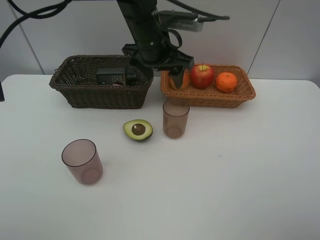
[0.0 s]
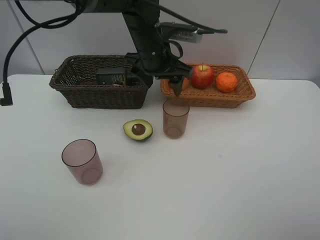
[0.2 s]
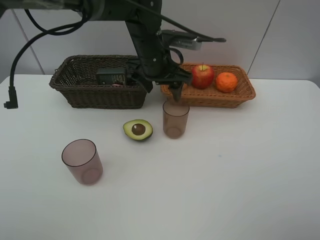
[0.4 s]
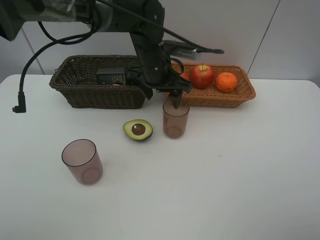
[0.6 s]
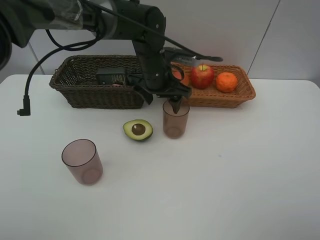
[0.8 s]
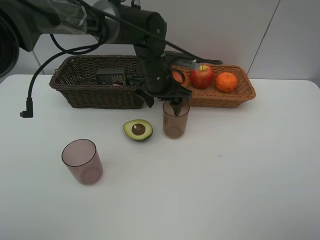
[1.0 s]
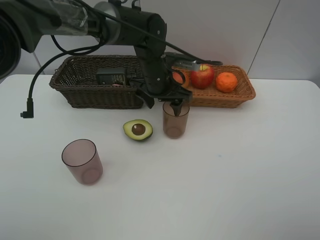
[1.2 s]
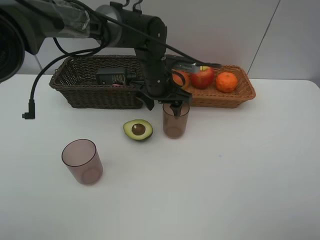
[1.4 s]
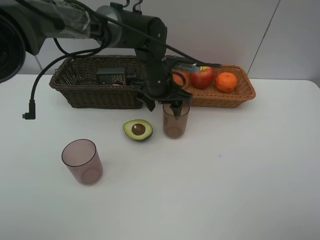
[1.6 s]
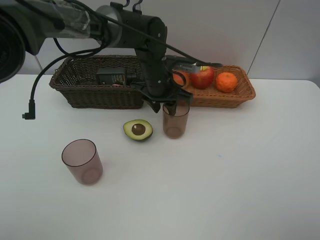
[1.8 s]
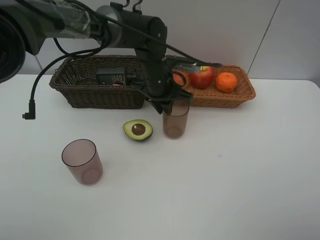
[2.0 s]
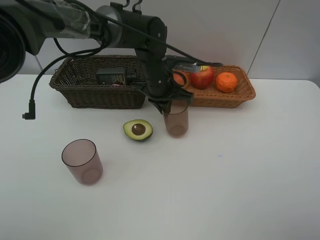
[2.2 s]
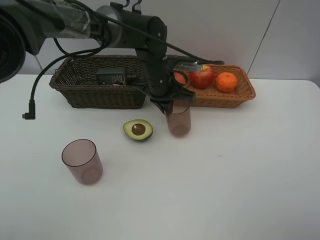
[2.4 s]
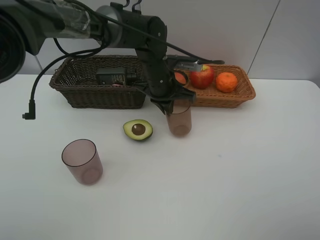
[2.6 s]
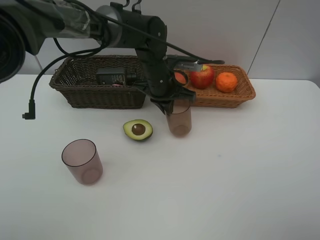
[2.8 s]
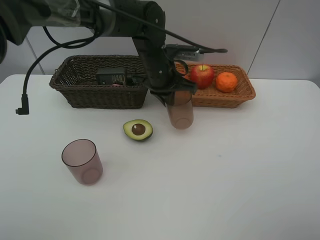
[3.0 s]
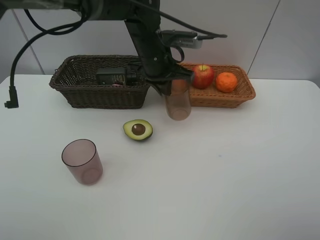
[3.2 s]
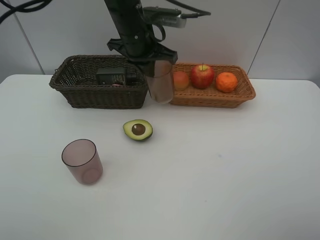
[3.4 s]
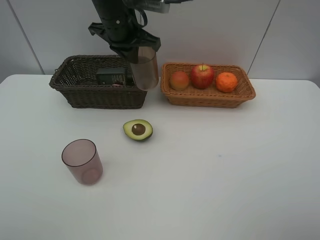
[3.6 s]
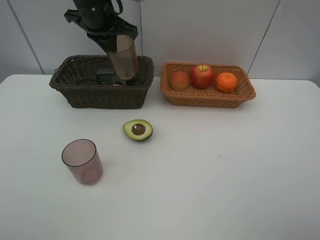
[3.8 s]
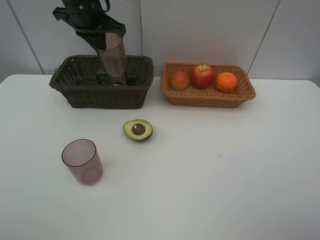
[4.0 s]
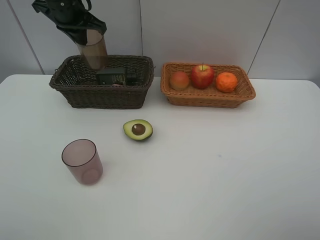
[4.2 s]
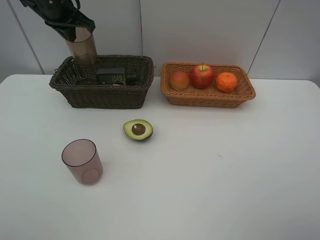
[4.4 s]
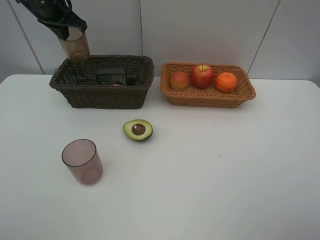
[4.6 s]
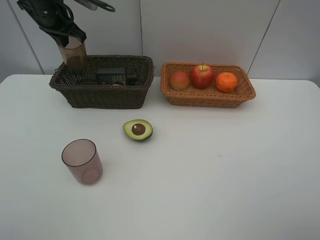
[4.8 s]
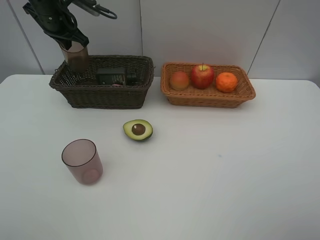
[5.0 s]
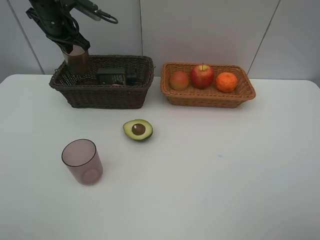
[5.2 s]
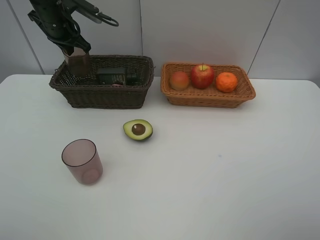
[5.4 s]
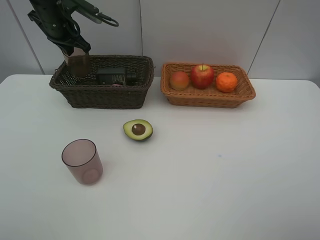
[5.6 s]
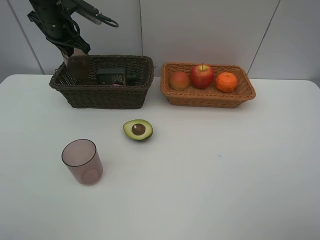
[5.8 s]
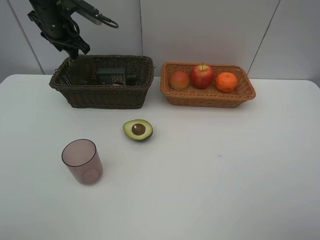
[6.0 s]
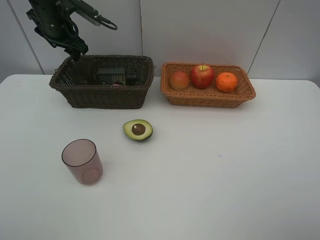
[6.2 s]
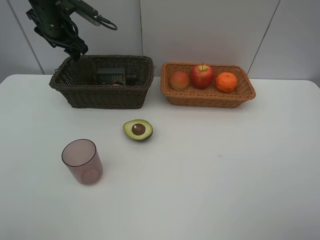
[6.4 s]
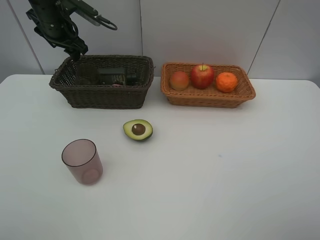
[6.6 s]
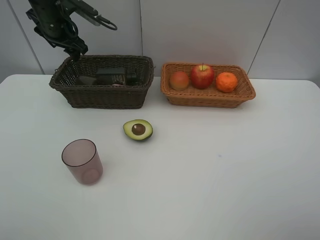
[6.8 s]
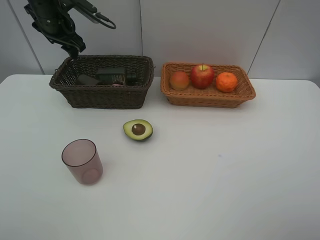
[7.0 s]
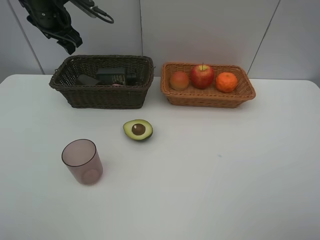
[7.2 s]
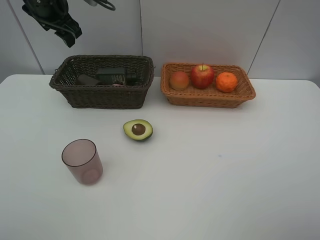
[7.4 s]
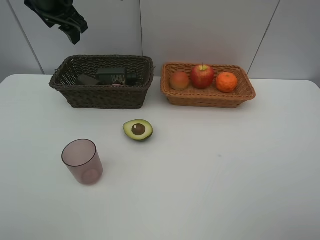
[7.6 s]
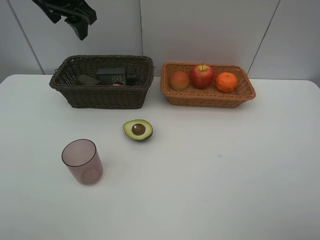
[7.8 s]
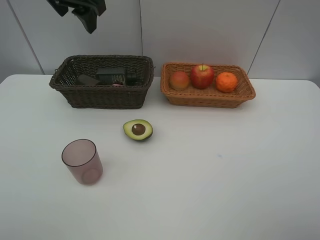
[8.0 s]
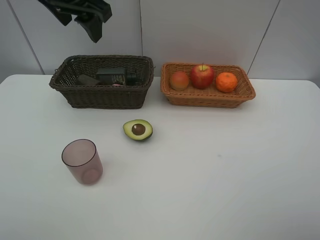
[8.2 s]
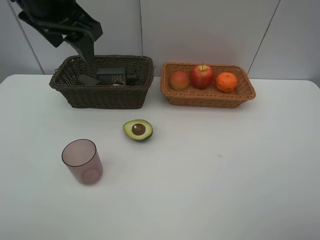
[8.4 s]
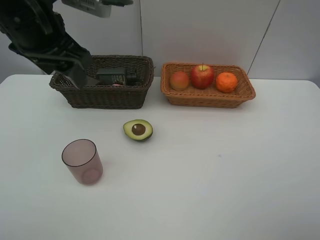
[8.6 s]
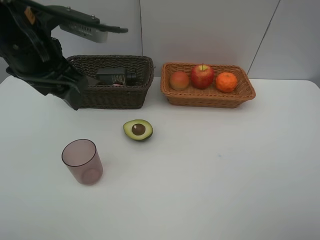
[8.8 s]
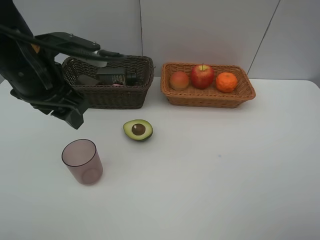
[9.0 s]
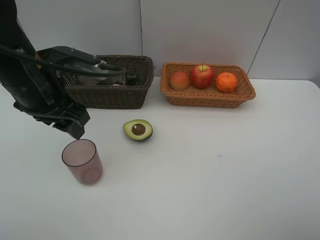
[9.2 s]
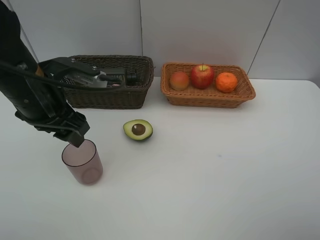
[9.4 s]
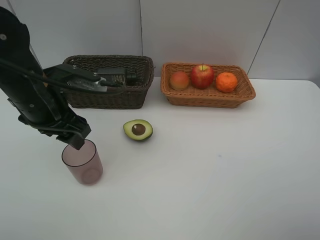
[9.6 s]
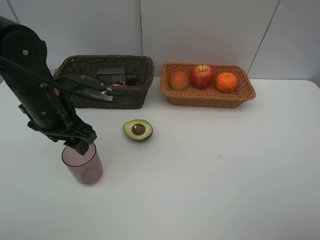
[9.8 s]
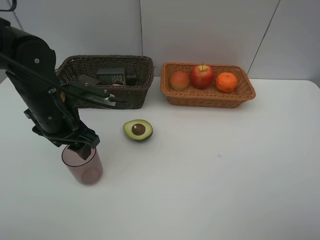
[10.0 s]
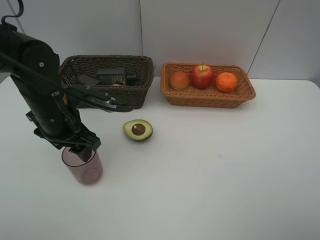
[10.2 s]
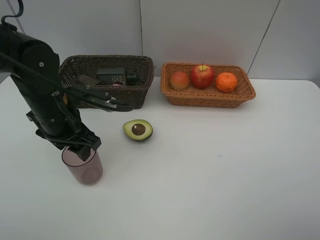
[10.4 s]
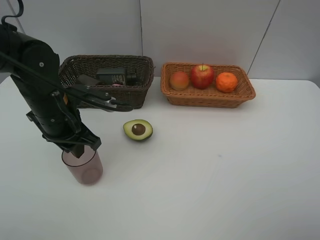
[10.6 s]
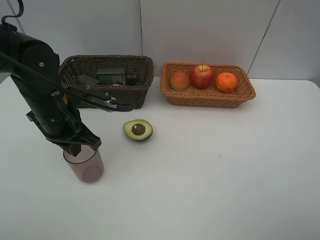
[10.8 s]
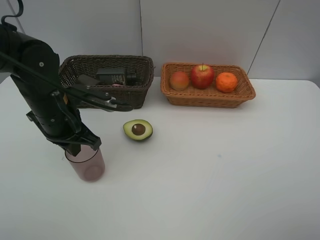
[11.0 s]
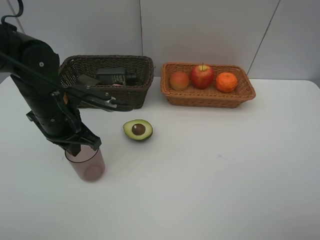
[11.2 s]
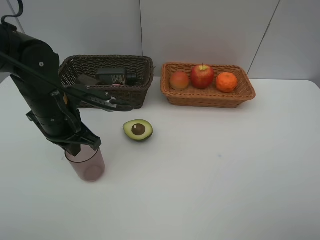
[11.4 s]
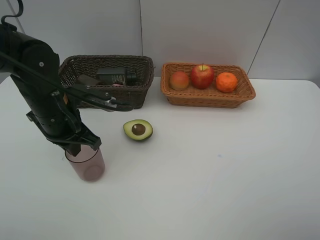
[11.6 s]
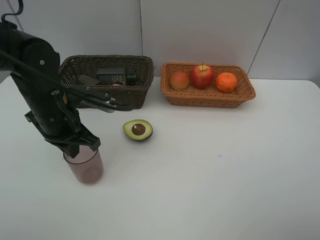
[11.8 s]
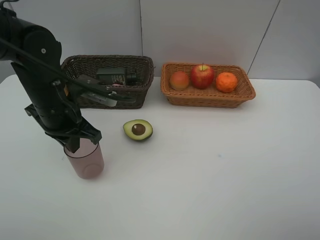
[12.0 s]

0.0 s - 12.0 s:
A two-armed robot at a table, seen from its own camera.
Task of the whole recording: Place multiple objects separately in different baskets.
Step, 0.0 s - 3.0 s: Pick up the light brown cup with left gripper.
Step, 3.2 s - 6.6 s: Place the light brown cup in the dark basket with left gripper.
Step, 6.8 s - 12.0 s: Pick up the red cup with left gripper.
0.0 s - 1.6 s: The left gripper shifts some 10 cm downward.
1.6 s - 3.0 s: The left gripper closes its fingers.
3.0 s - 4.4 s: The left gripper is displaced to the left and upward by roughly 25 cm.
4.4 s - 6.0 s: The left gripper travels downward by about 5 cm, and opens its fingers.
6.0 s - 7.6 s: The left gripper moves upward and backward, approximately 10 cm.
7.6 s - 9.0 s: The left gripper is displaced backward by roughly 20 cm.
9.0 s - 10.4 s: The left gripper moves downward, roughly 10 cm.
10.4 s - 12.0 s: The left gripper closes.

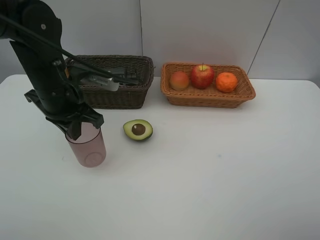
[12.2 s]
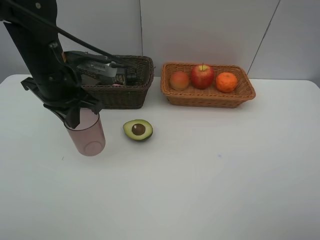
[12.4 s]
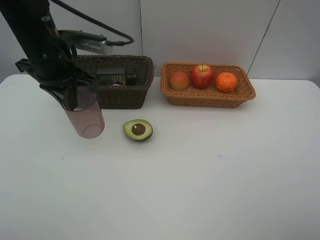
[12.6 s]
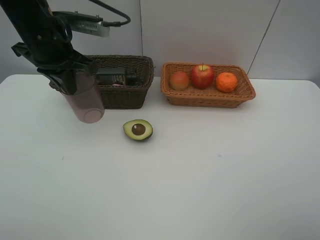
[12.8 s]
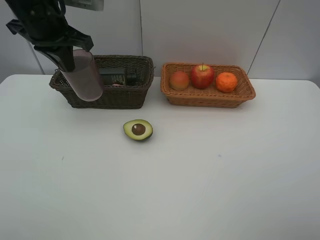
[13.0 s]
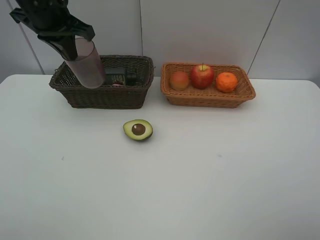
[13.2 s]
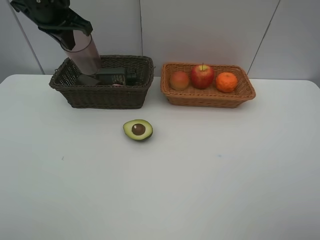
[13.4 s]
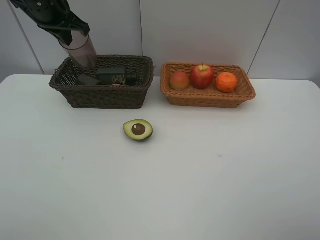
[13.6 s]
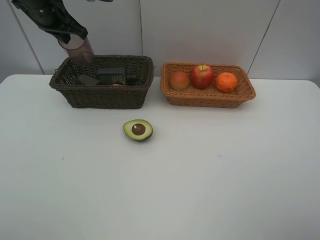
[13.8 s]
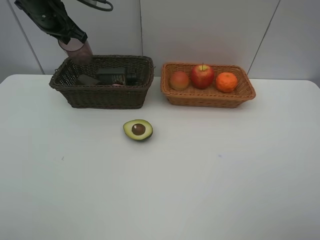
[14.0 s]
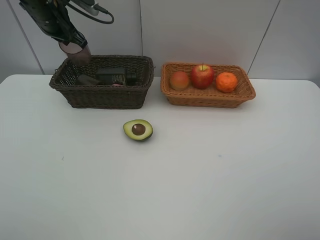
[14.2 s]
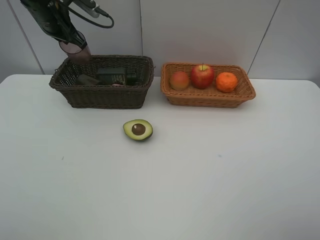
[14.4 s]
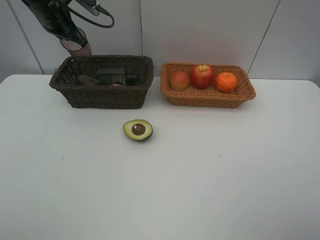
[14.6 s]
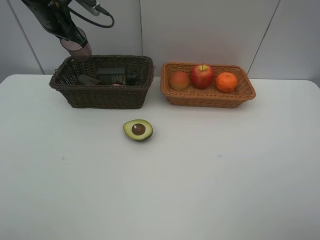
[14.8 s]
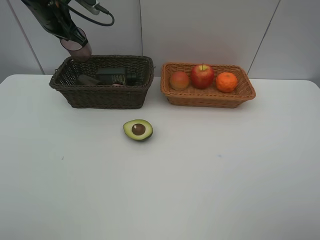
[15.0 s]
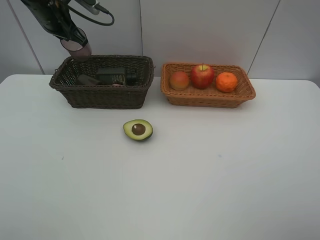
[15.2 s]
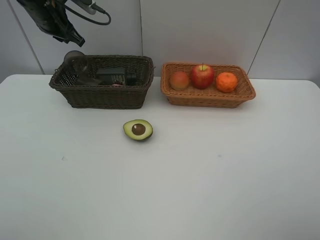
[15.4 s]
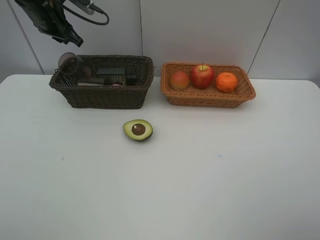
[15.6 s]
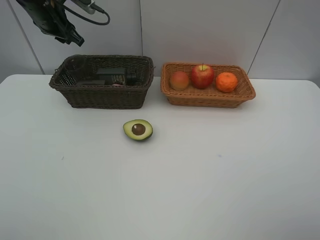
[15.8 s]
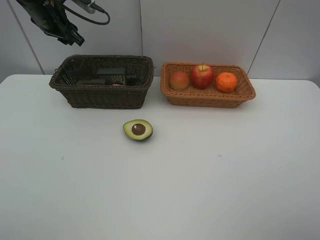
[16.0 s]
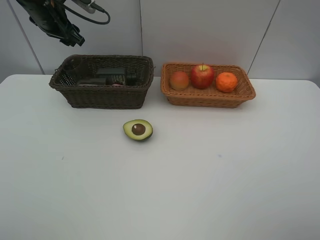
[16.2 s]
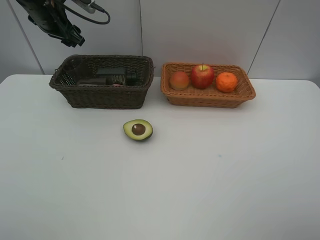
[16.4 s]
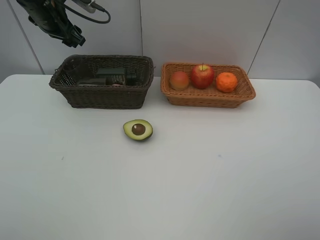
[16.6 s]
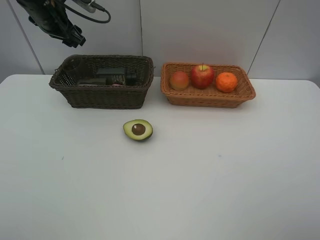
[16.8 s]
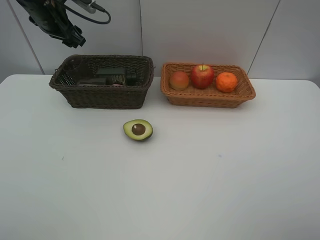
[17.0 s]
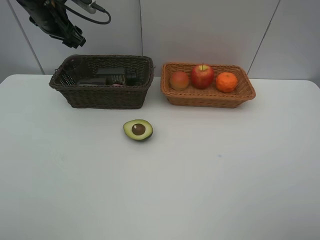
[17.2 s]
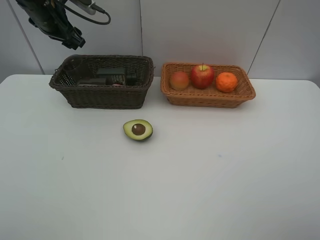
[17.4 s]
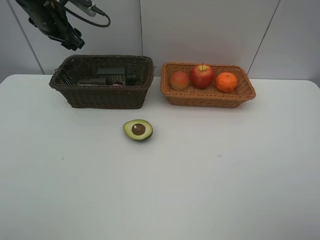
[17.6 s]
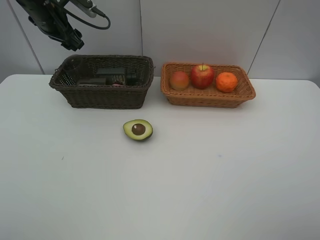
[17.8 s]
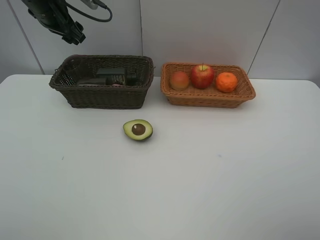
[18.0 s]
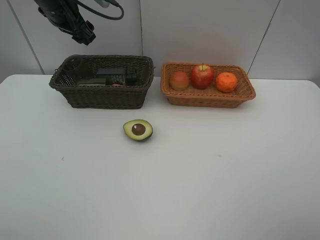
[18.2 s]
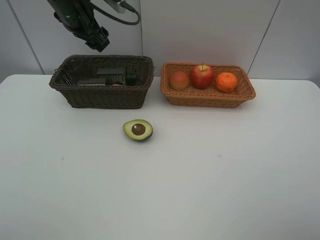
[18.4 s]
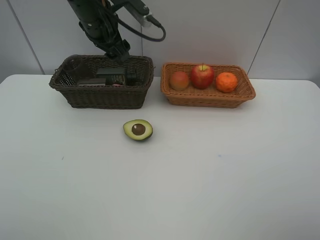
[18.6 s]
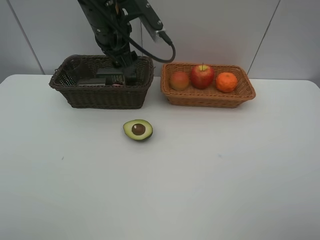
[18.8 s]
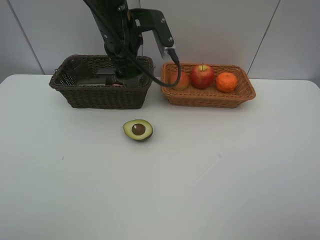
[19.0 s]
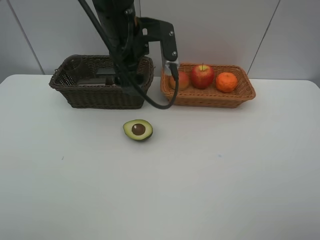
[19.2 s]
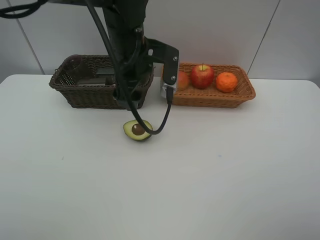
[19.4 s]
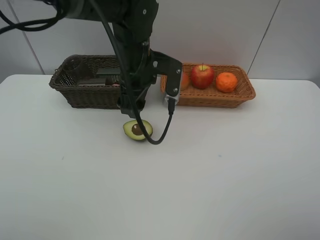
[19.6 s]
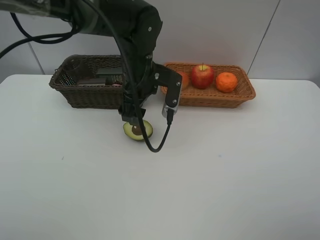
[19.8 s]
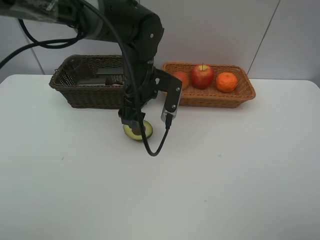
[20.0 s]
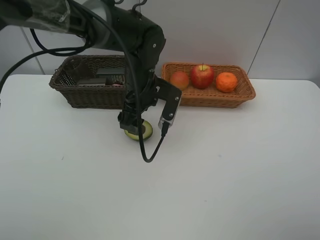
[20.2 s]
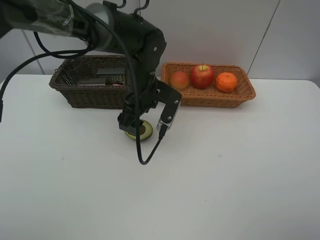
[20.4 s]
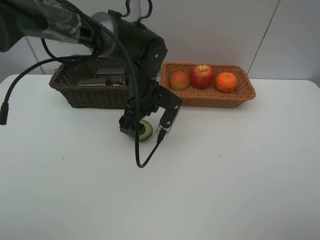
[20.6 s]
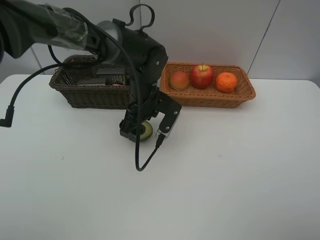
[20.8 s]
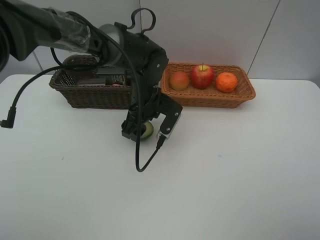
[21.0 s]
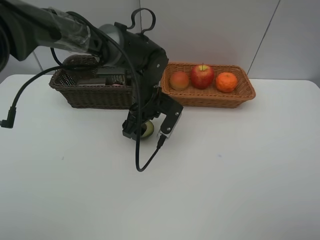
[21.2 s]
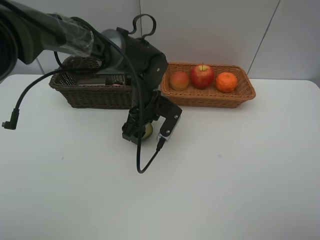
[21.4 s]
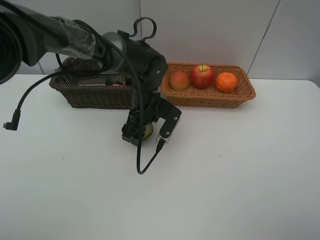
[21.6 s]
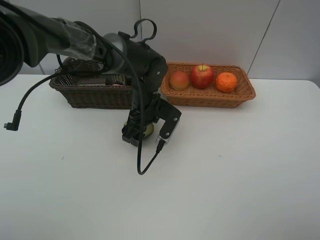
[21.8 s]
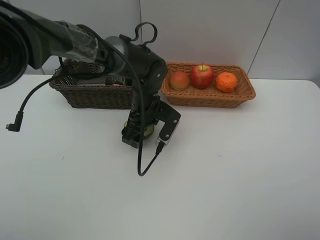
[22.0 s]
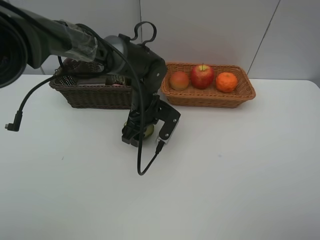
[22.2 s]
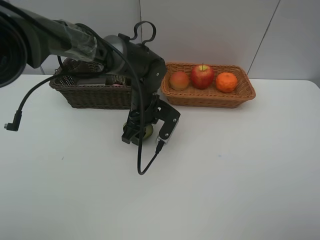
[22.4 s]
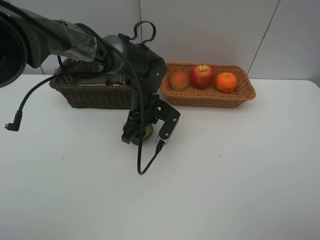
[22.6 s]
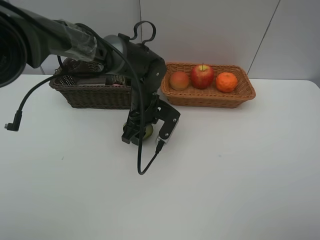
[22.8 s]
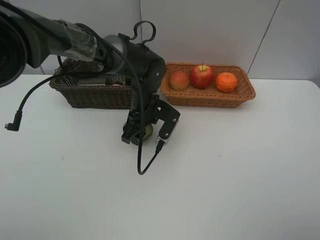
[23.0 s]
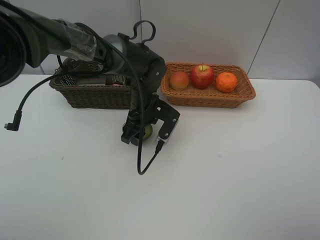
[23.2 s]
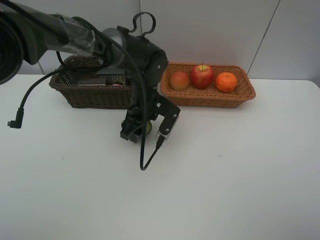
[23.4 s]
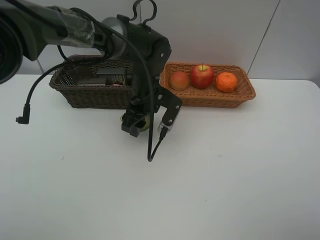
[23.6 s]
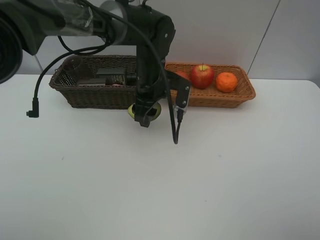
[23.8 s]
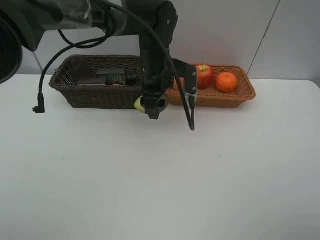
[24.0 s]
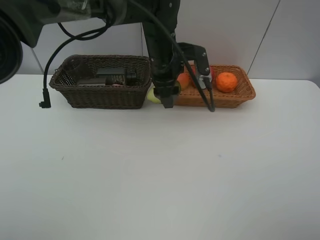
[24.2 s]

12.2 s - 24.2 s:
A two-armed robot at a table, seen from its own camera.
Task of the whole recording: Place multiple objects separately in different baskets.
Step, 12.2 s - 15.6 s: Place the red cup in the dark basket with left gripper.
Step, 15.8 s - 23.8 s: Pick up the avocado with left gripper.
12.2 s - 13.8 s: The left gripper goes some 15 cm forward and upward.
13.8 s - 15.2 s: The grippers stay close to where they were, moving slightly.
15.2 s - 16.6 s: The left gripper opens its fingers.
16.6 s - 18.2 s: The left gripper moves roughly 5 cm.
18.2 s - 19.8 s: The left gripper goes some 20 cm to the right, backward and downward.
19.8 s - 21.2 s: The left gripper goes about 5 cm downward.
21.2 s - 22.6 s: The grippers move only a little.
22.6 s - 24.2 s: The left gripper goes about 10 cm upward.
